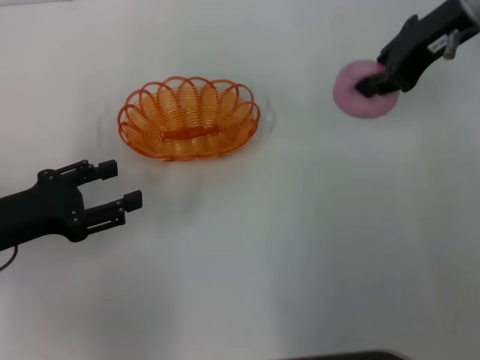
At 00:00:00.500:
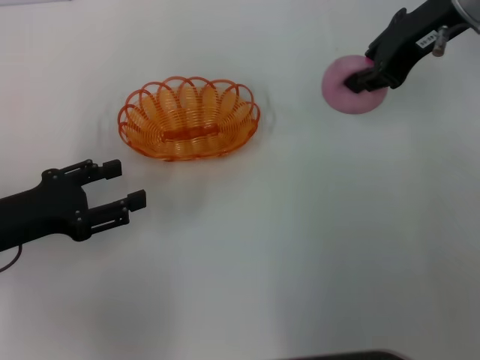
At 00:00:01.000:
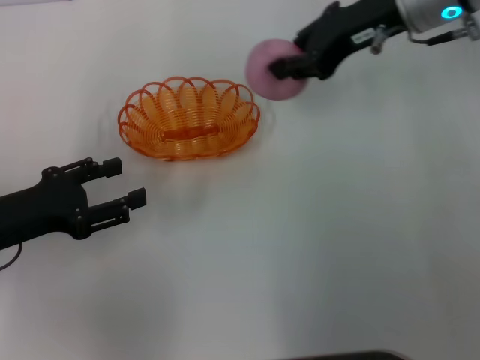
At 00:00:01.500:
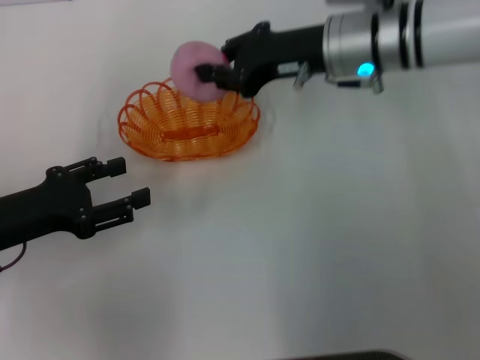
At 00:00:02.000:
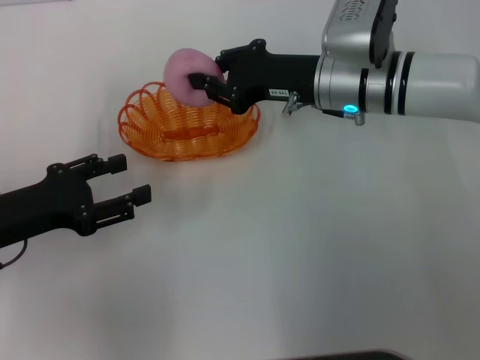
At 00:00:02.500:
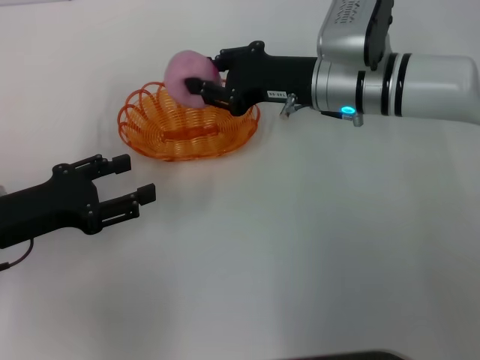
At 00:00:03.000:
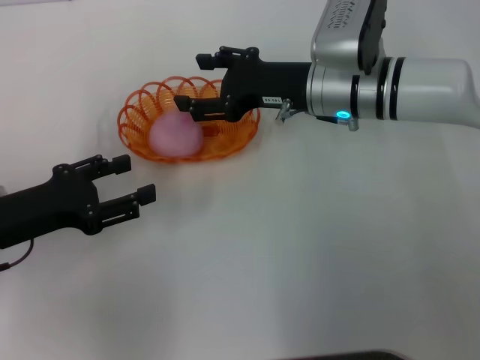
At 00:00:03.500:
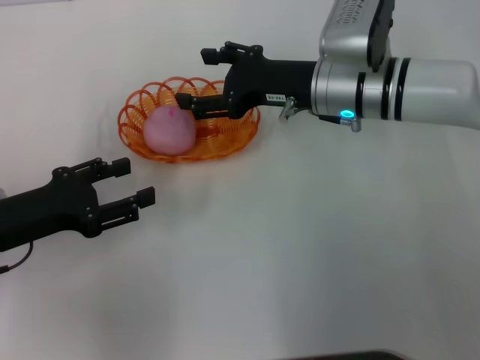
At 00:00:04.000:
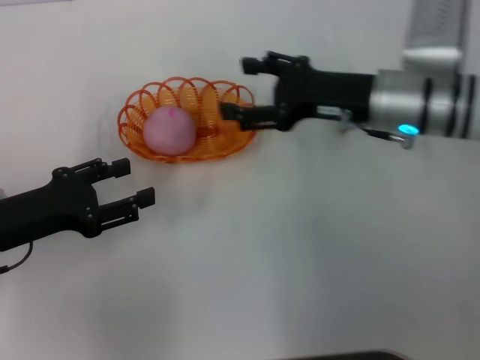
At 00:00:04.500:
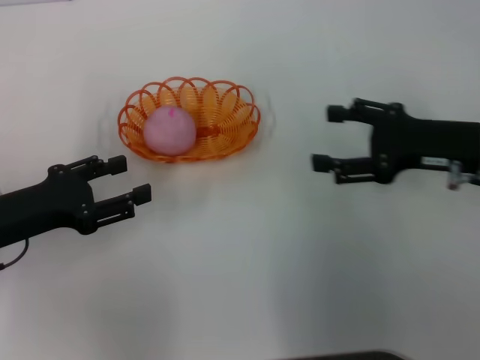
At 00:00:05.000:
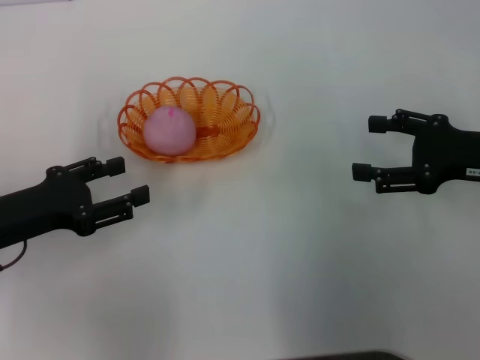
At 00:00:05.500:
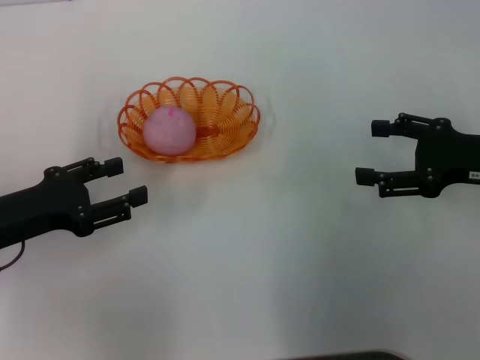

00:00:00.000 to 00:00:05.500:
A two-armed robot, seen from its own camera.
Step, 00:00:00.500 to 00:00:04.000: Place the peach into the basket with the right gripper.
00:00:00.000 to 00:00:02.000: The right gripper heads downward and to the left, covering roughly 15 cm.
00:00:02.000 to 00:00:03.500: The right gripper opens.
00:00:03.500 to 00:00:05.500: The right gripper moves to the right and backward, about 20 cm.

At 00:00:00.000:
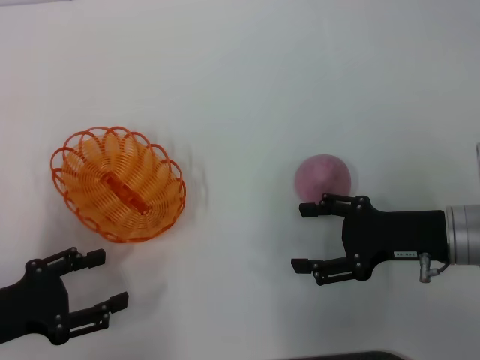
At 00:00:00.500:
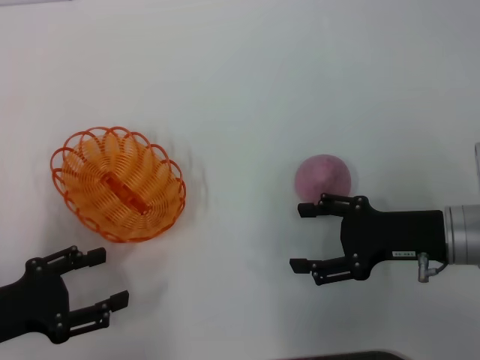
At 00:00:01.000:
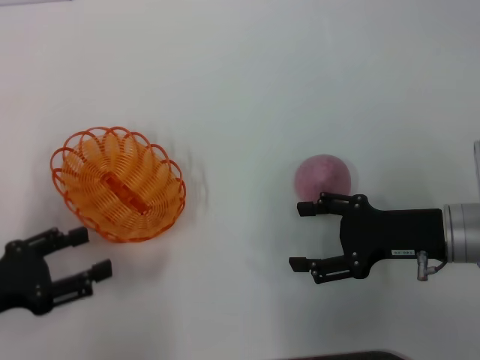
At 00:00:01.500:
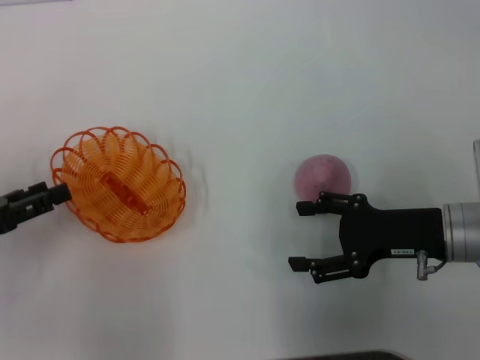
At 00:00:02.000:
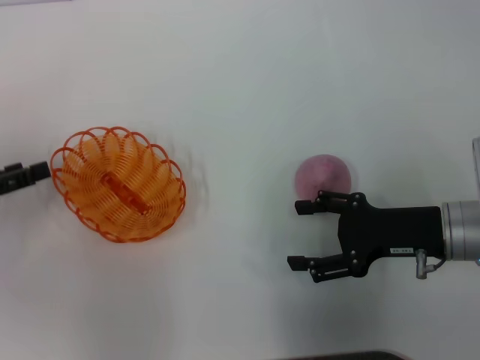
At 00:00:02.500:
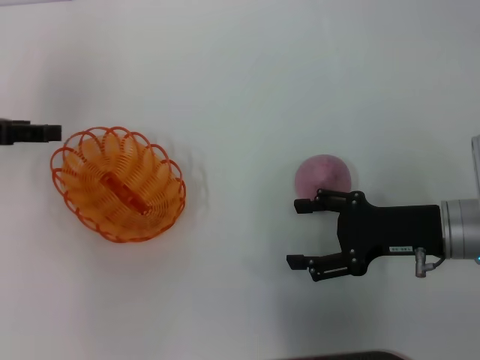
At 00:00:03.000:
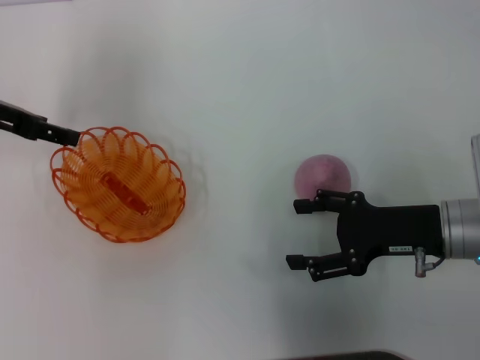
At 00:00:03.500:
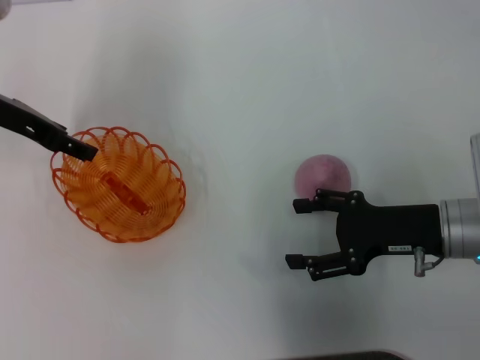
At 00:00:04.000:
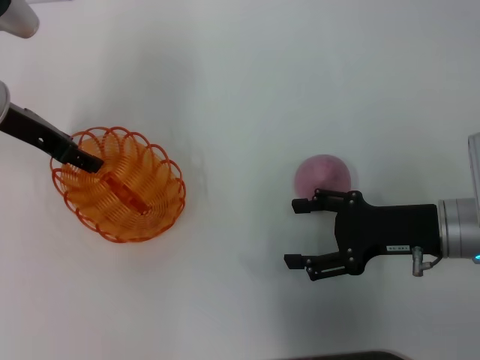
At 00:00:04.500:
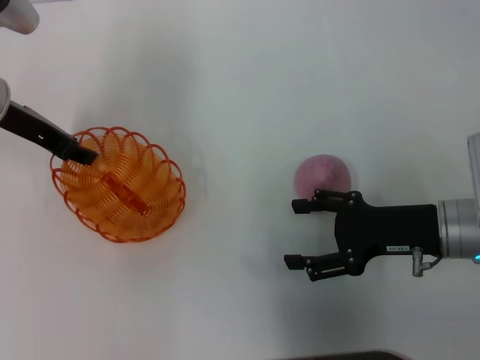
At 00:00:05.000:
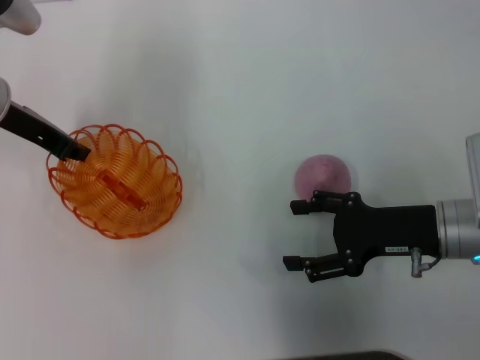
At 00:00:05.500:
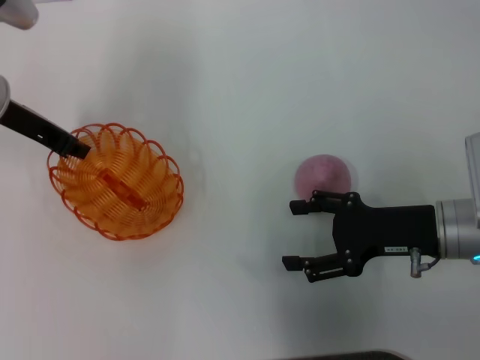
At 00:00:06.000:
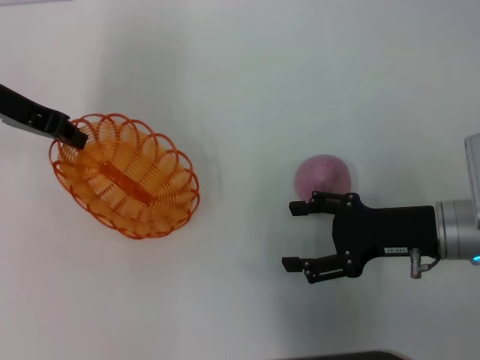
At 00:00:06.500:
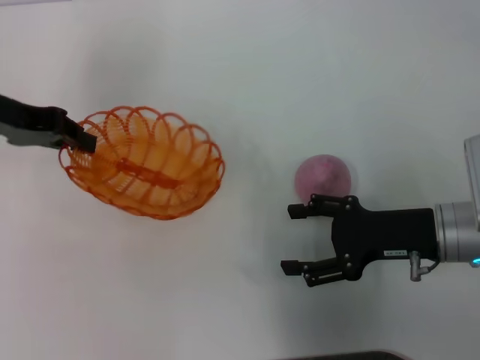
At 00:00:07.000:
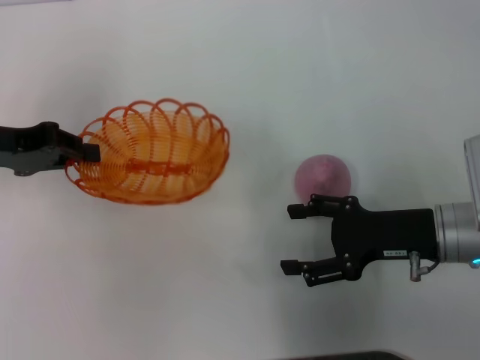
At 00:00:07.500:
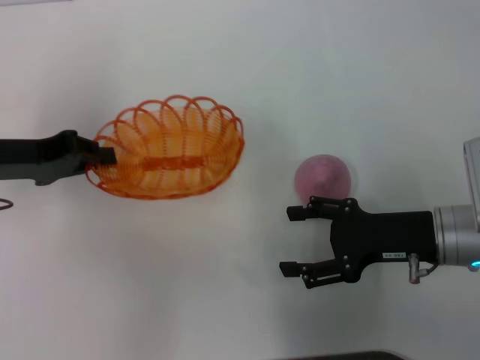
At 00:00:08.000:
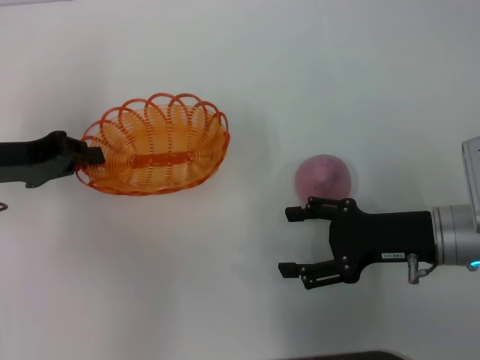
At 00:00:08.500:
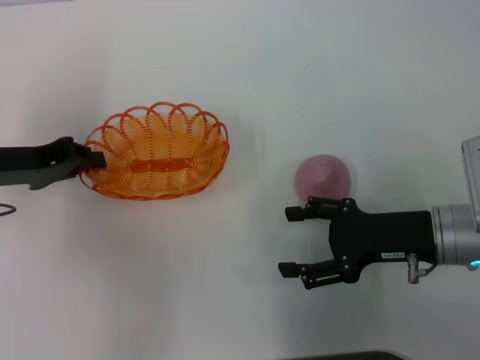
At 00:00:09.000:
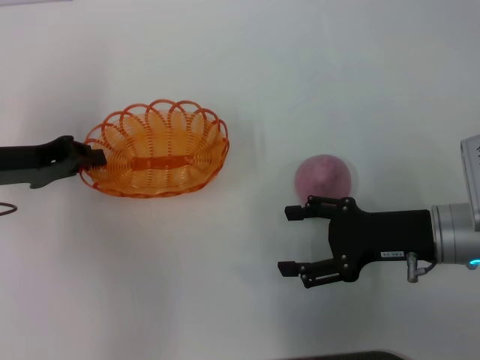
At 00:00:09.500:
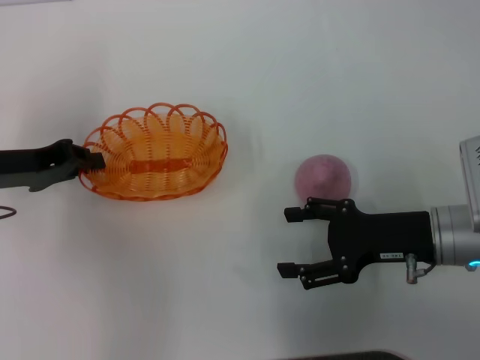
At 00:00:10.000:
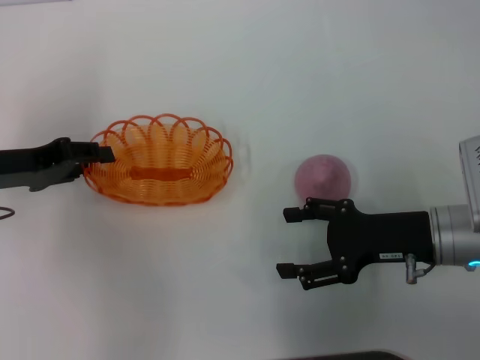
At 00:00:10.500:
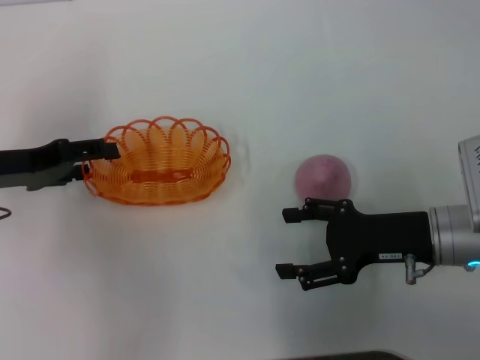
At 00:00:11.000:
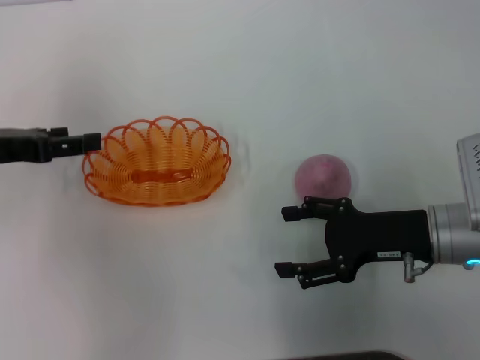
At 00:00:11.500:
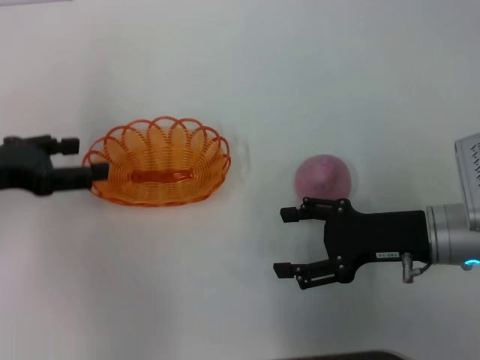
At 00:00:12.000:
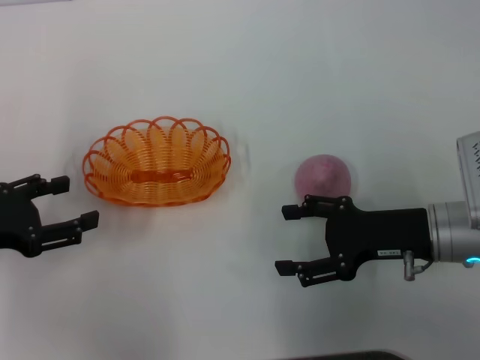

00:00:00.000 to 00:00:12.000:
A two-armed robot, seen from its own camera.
Step, 00:00:00.000 to 00:00:06.000: Pick up the basket with the left gripper.
Step, 00:00:06.500 to 00:00:11.000: Place the basket in the center of view with the left gripper.
00:00:00.000 to 00:00:02.000: The left gripper goes about 10 cm forward and to the left.
00:00:02.000 to 00:00:04.000: The left gripper moves forward, to the right and upward, approximately 20 cm.
00:00:04.000 to 00:00:06.000: The left gripper closes.
00:00:06.000 to 00:00:08.000: The left gripper shifts some 10 cm backward and downward.
00:00:08.000 to 00:00:10.000: There are only small adjustments of the grippers.
00:00:10.000 to 00:00:12.000: The left gripper is displaced backward by roughly 5 cm, and opens its fingers.

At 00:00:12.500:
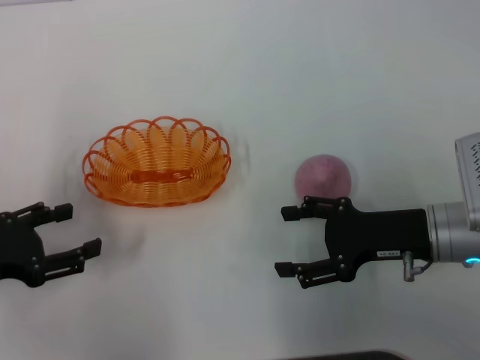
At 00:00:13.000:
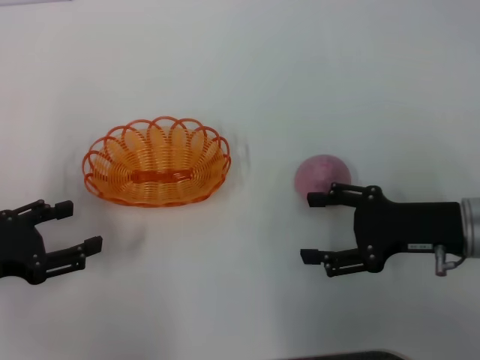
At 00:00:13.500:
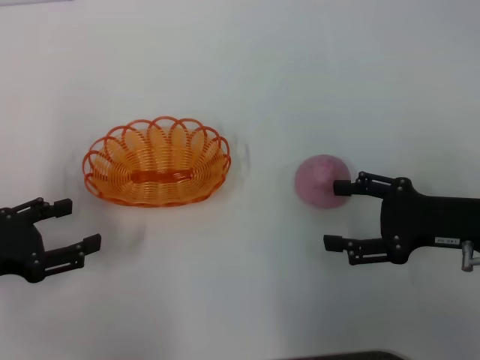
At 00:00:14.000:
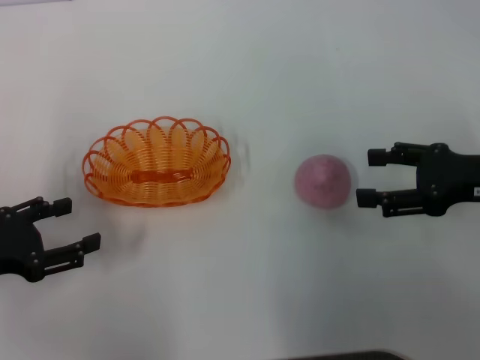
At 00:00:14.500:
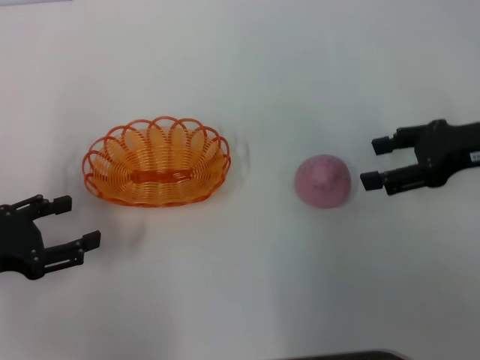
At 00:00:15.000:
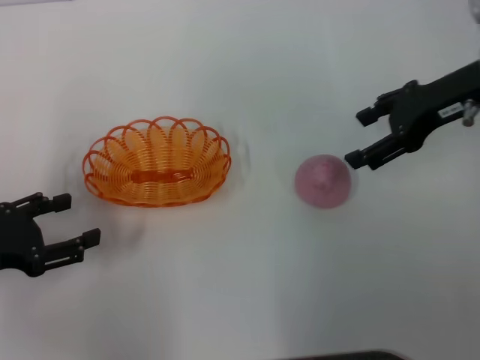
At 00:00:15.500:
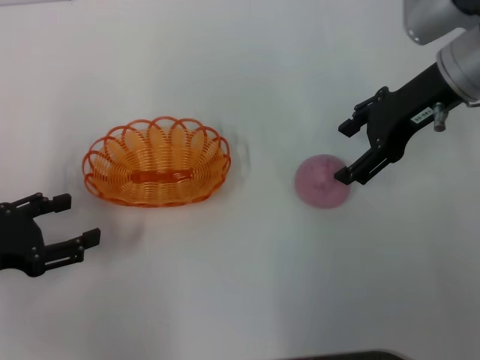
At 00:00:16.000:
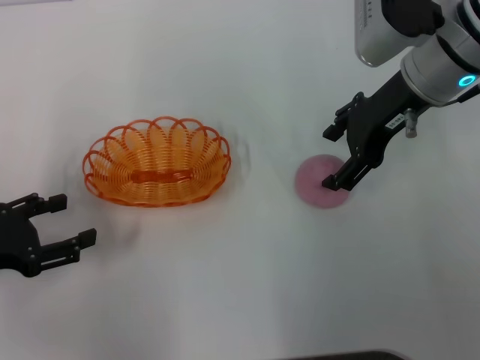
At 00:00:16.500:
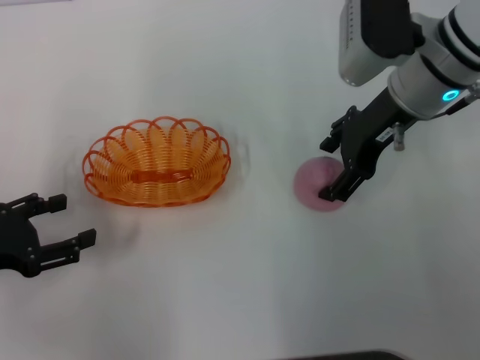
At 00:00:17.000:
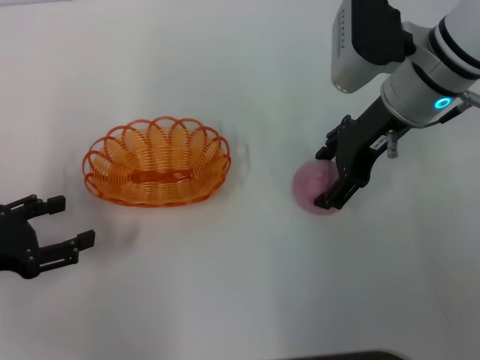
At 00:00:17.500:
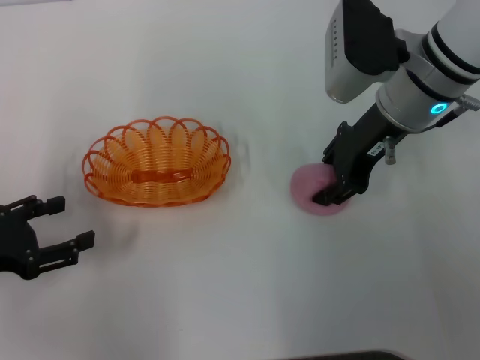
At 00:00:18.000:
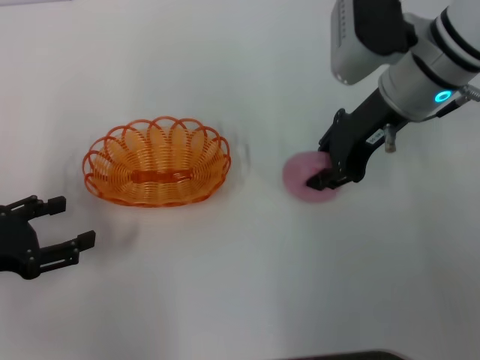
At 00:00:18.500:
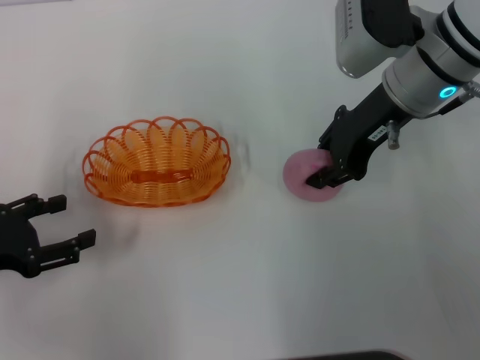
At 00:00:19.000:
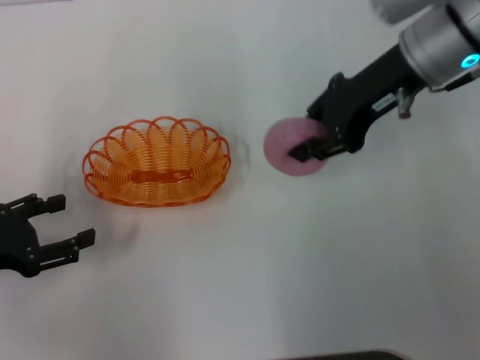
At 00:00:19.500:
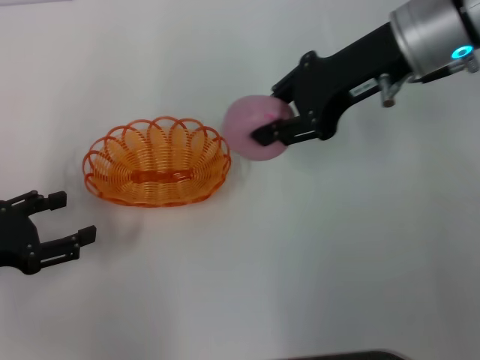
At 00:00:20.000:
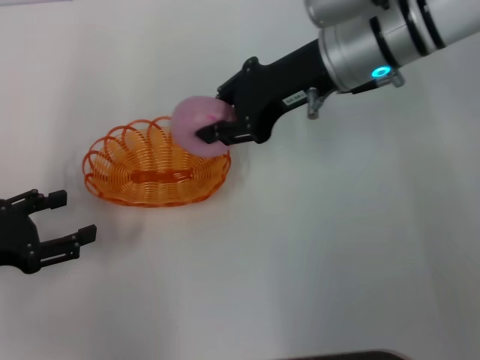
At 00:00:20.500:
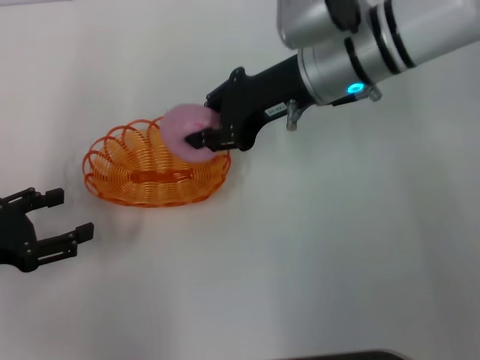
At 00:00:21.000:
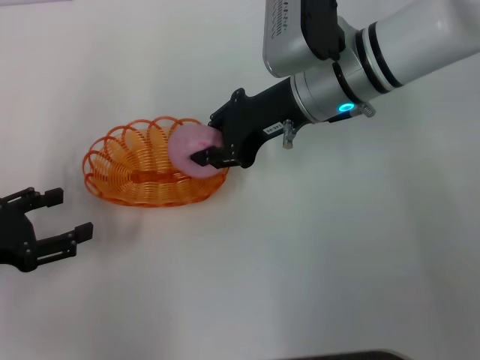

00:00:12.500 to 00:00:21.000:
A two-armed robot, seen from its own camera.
Step, 00:00:12.500 to 00:00:19.000: Pick up the peach with the right gripper.
00:00:12.500 to 00:00:14.500: The right gripper heads upward, to the right and forward, covering some 15 cm.
00:00:14.500 to 00:00:16.500: The right gripper heads to the left and forward, covering approximately 15 cm.
00:00:16.500 to 00:00:19.000: The right gripper closes its fingers.
00:00:19.000 to 00:00:21.000: The right gripper shifts some 10 cm to the left and downward.
